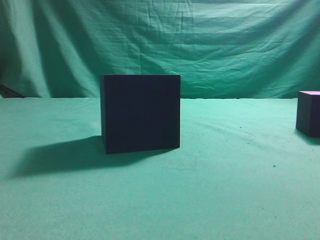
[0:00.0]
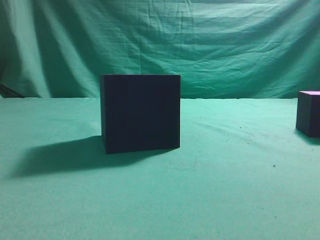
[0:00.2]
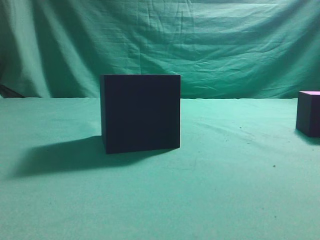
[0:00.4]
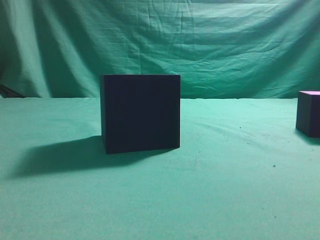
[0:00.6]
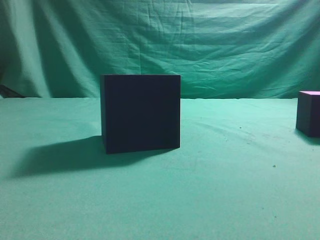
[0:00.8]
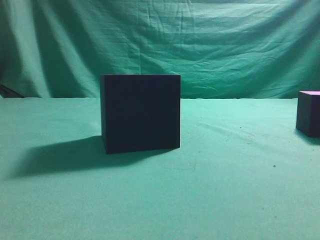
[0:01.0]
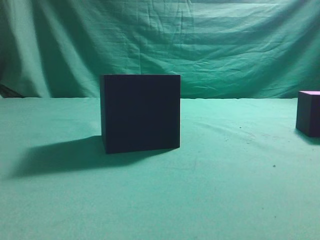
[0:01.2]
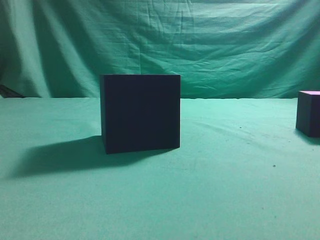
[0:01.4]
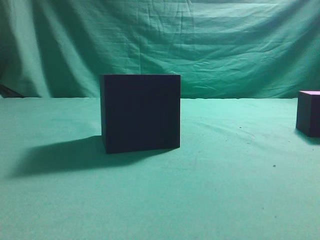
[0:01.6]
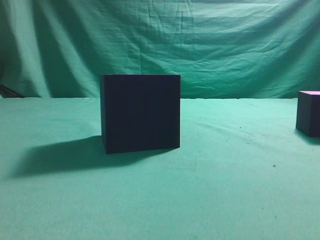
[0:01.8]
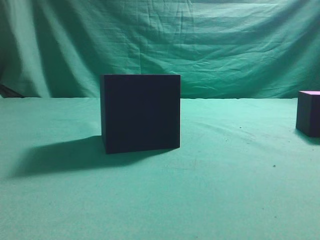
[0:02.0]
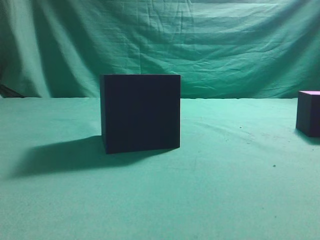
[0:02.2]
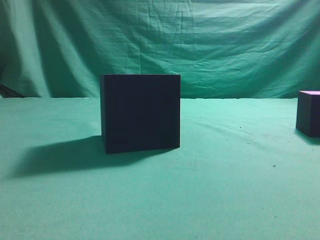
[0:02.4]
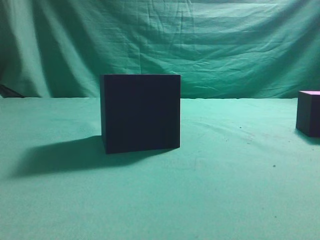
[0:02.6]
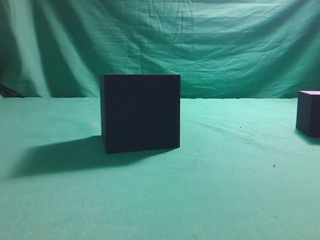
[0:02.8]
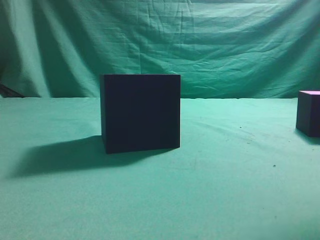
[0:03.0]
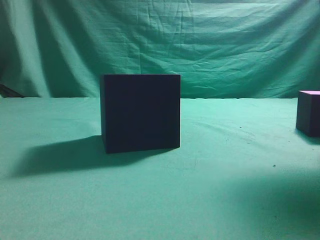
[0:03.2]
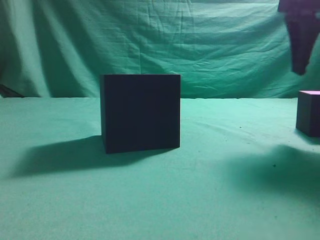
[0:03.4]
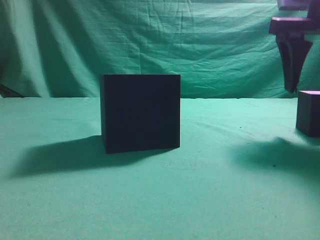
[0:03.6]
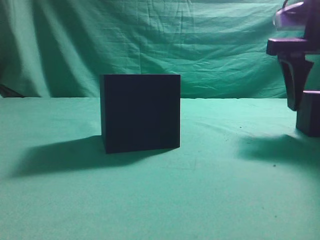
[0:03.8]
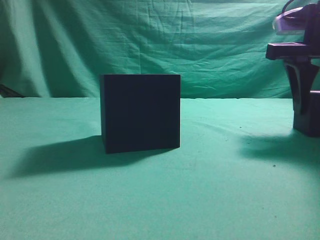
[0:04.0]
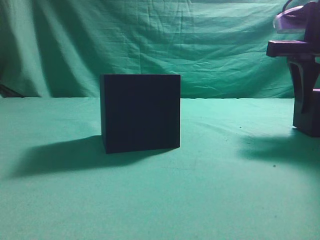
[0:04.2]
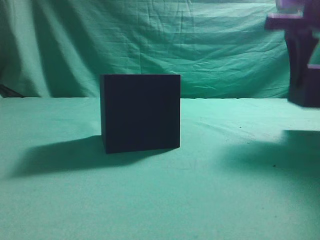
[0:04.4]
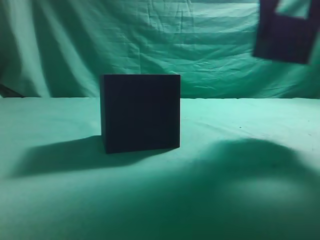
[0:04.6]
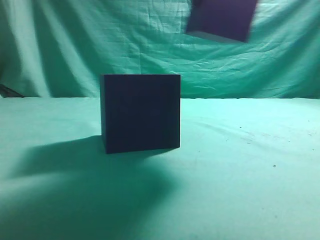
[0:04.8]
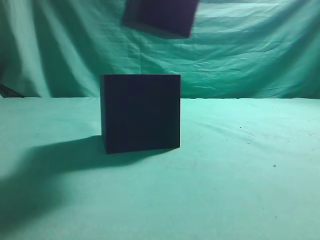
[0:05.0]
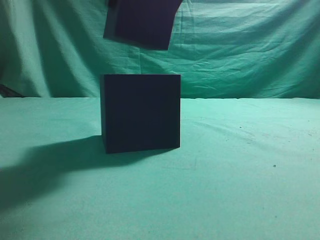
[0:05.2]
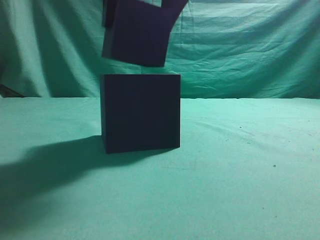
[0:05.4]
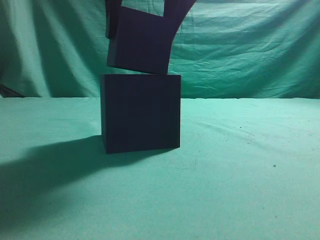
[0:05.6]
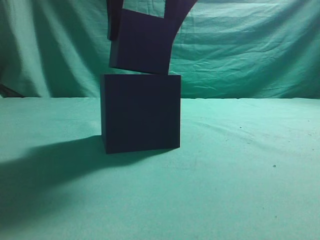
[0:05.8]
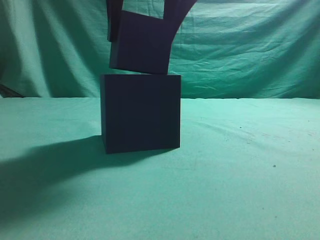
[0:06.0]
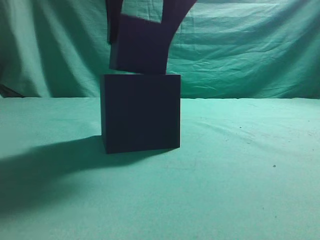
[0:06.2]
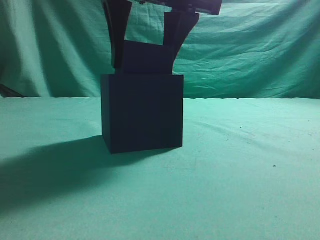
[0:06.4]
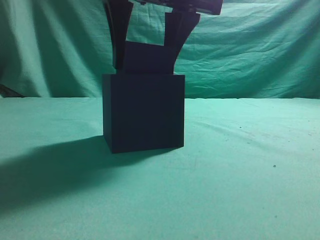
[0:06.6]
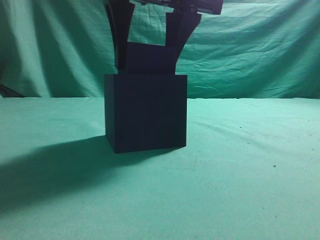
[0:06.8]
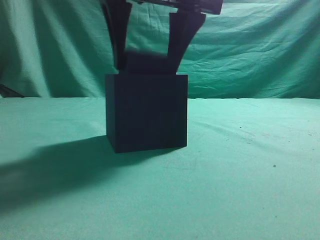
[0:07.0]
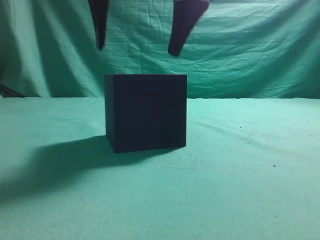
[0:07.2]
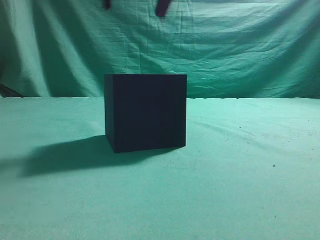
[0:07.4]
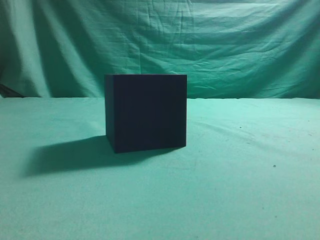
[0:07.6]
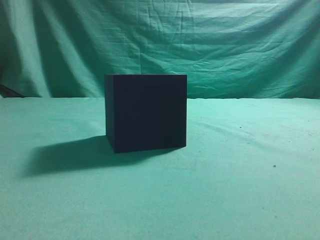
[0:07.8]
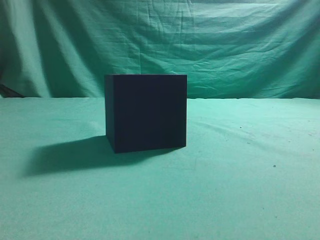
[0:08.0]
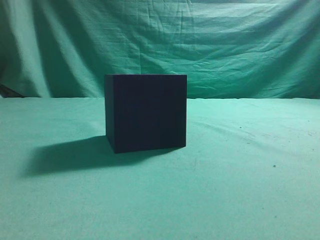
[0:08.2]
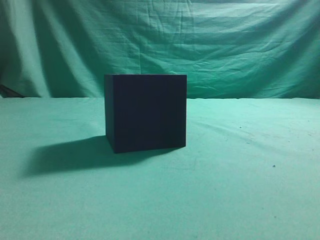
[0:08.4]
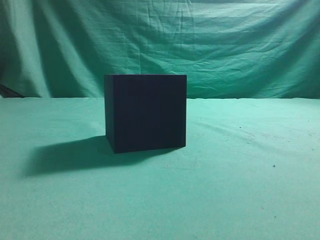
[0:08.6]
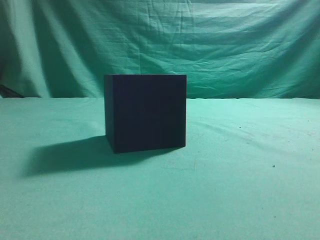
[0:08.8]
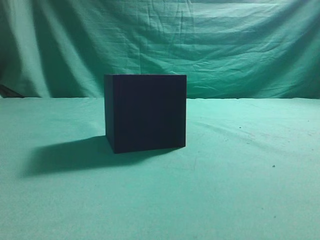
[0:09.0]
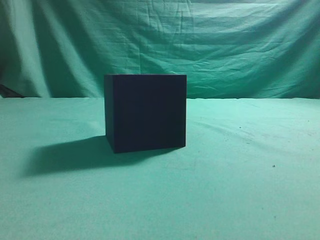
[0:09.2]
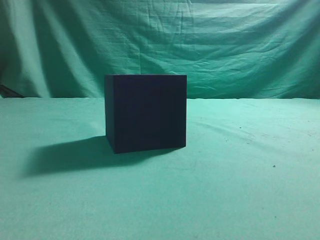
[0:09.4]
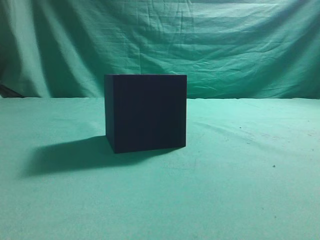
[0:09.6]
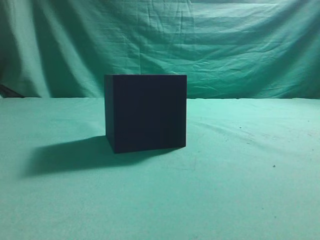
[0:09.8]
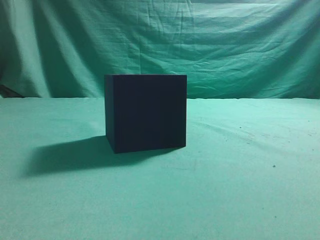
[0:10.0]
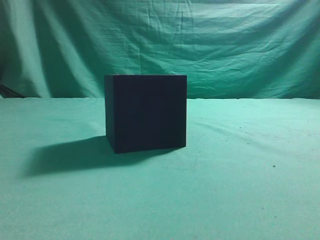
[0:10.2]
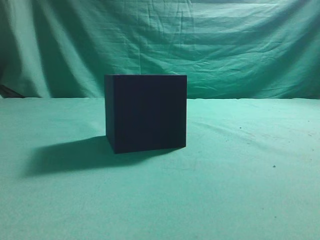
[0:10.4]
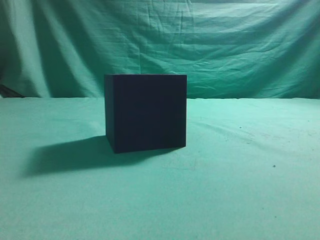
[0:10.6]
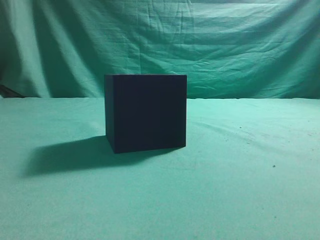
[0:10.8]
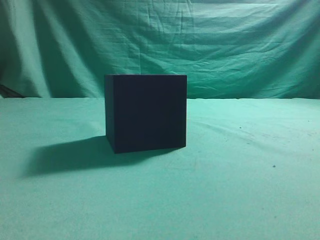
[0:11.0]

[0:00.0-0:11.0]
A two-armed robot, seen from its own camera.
Task of the whole recording: pick up the cube block and place it into the cube groove.
Step, 0:00.0 to 0:04.2: Grasp the cube.
Step, 0:04.6 to 0:07.2: Place cube into the cube-shaped recess.
0:01.6 to 0:03.2: The right gripper heads forward, covering some 20 cm, and opens.
0:03.2 to 0:04.8: The right gripper moves to the left, some 10 cm.
0:04.8 to 0:06.2: The right gripper shifts roughly 10 cm to the left.
0:06.2 to 0:07.8: The right gripper moves upward, some 15 cm, and closes up.
